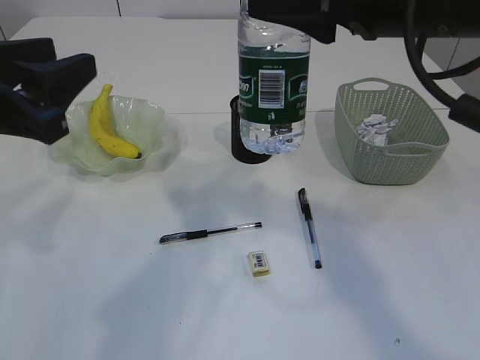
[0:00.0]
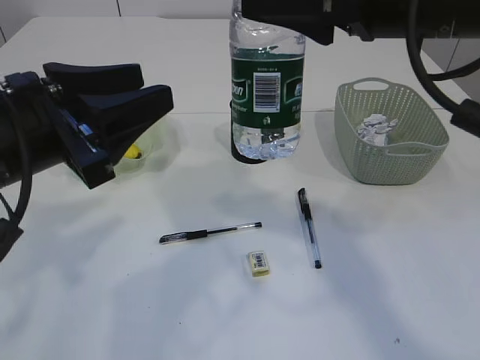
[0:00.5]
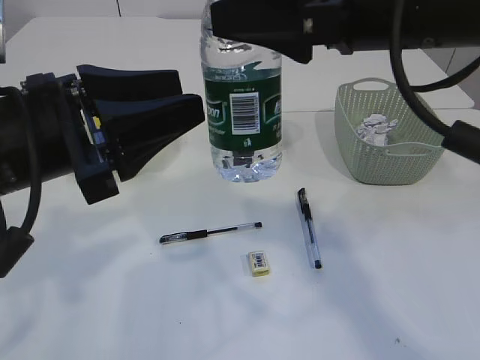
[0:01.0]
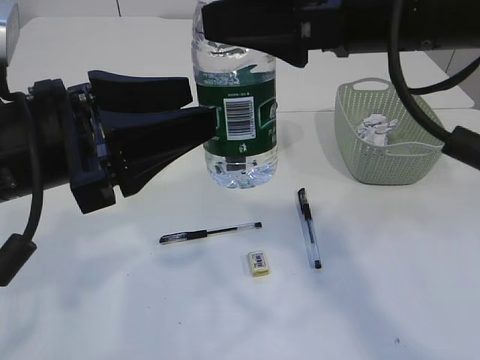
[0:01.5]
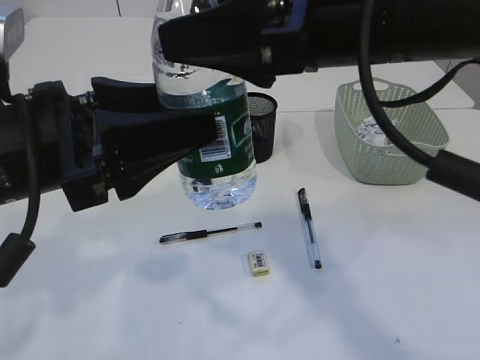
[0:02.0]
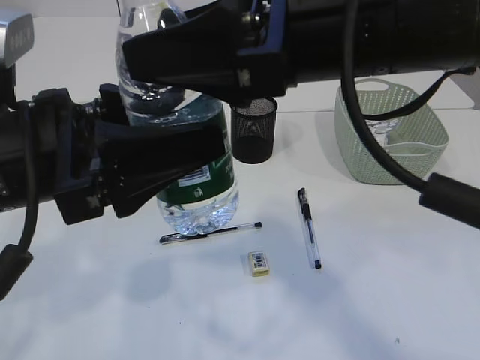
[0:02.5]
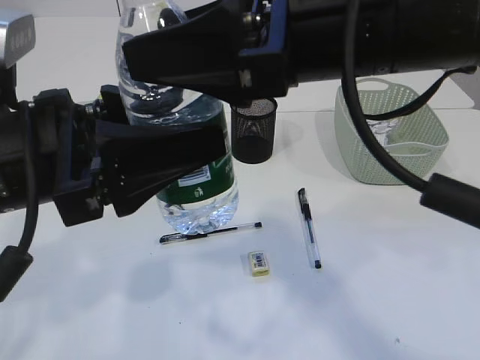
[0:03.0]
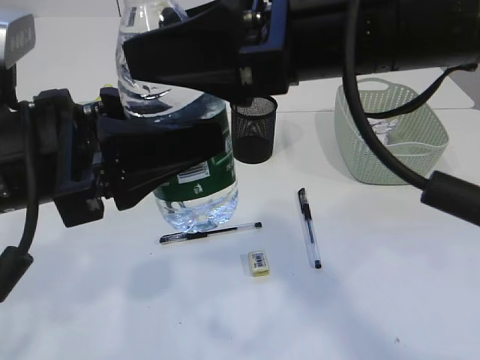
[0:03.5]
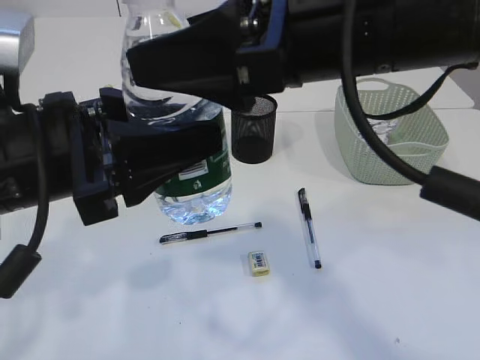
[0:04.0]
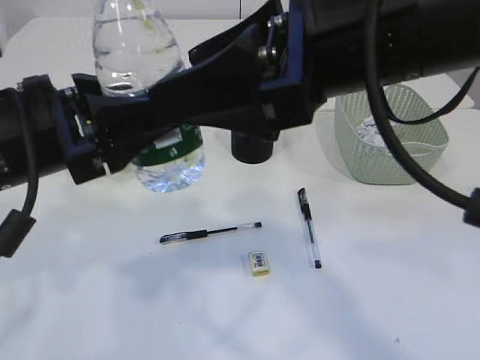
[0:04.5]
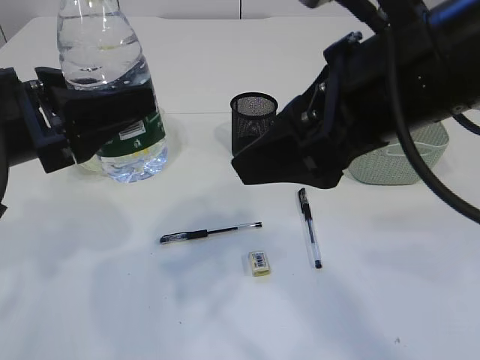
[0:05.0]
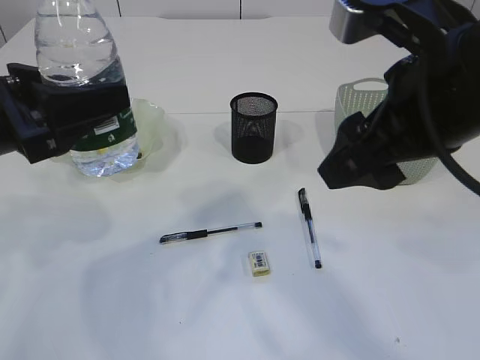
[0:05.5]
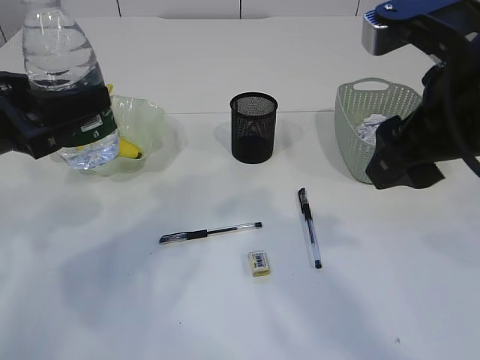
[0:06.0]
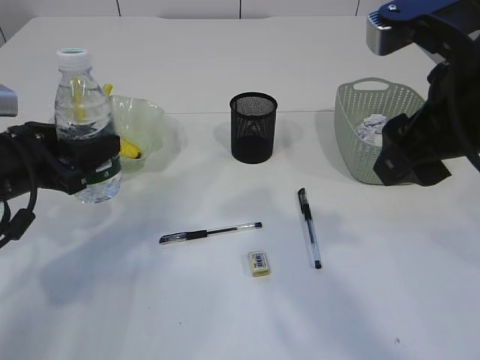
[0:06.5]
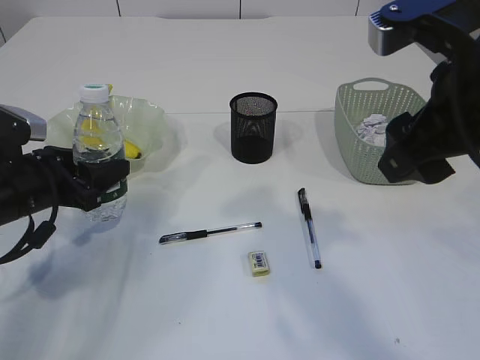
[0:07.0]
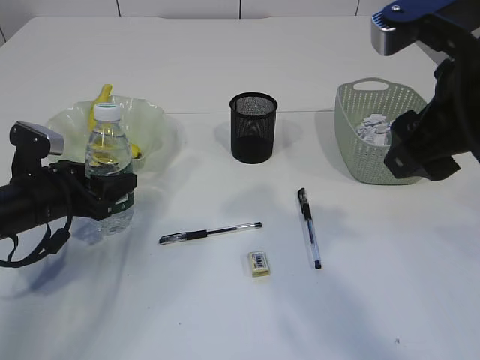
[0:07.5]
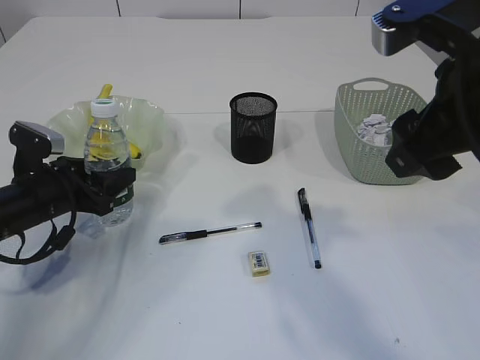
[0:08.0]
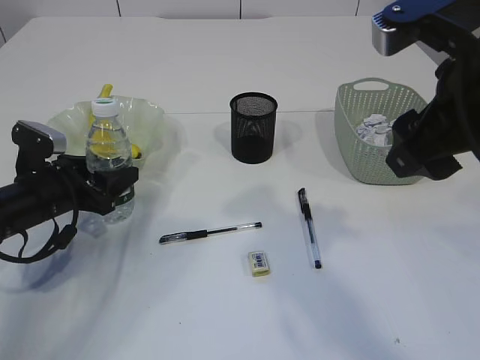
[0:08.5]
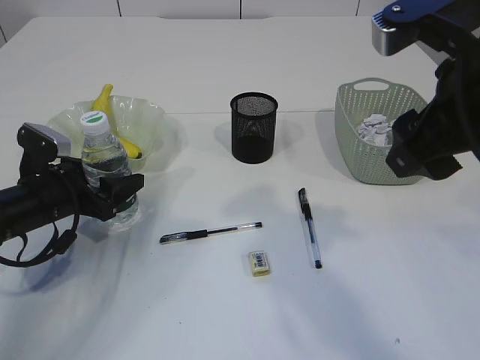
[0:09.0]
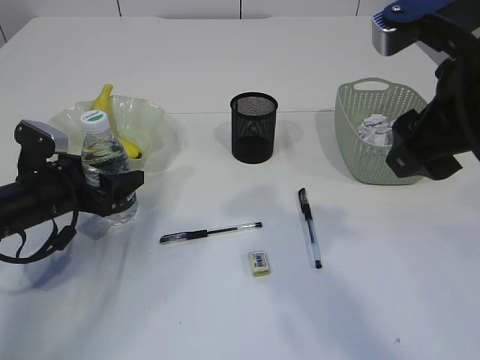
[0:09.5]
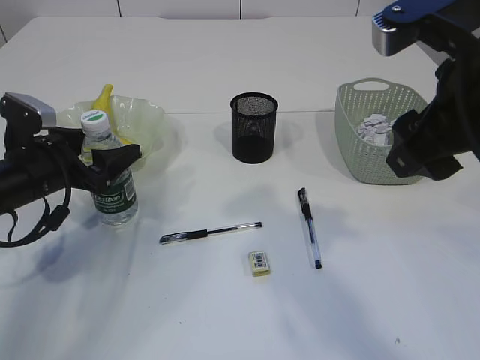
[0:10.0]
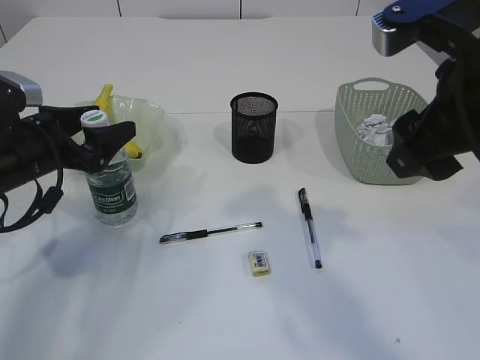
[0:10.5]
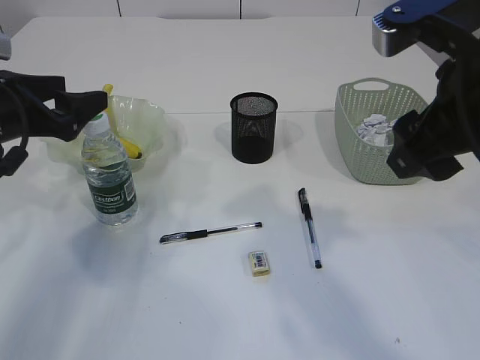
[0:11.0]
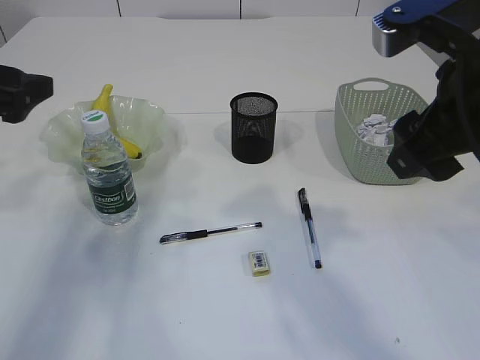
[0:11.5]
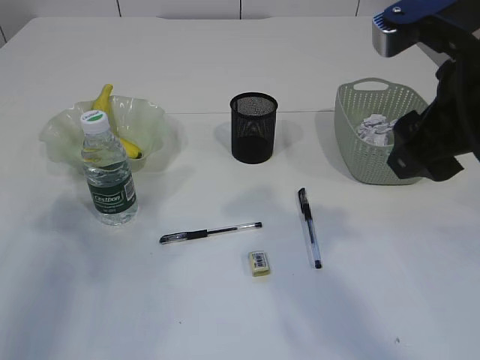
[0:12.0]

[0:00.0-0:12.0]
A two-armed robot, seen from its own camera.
Step, 0:00.0 to 0:04.5: transfer the bottle to the left arm.
Step, 0:05.0 to 0:11.0: Place the bottle.
0:00.0 to 0:02.0: The left gripper is displaced to the right by approximately 5 cm. Meanwhile the right gripper is displaced to the left by approximately 5 cm.
0:04.0 to 0:06.0: The left gripper shifts roughly 10 cm to the left and forward. The right gripper heads to the right, covering approximately 10 cm.
0:06.0 to 0:08.0: The left gripper shifts approximately 15 cm downward and forward.
0:08.0 to 0:10.0: The grippers move only a little.
0:10.0 to 0:12.0: The left gripper heads upward, backward and to the left, covering some 20 cm.

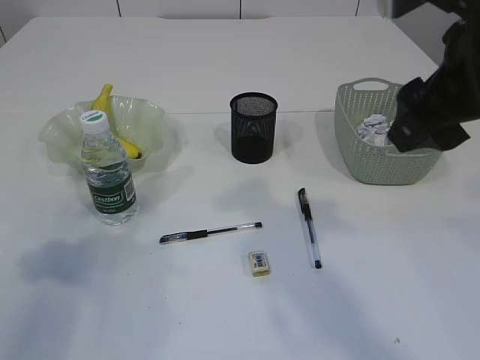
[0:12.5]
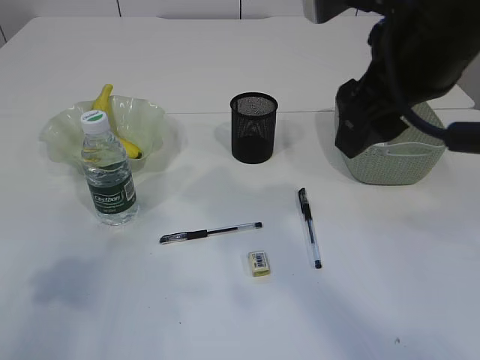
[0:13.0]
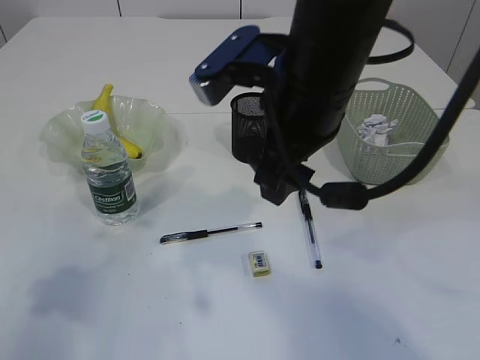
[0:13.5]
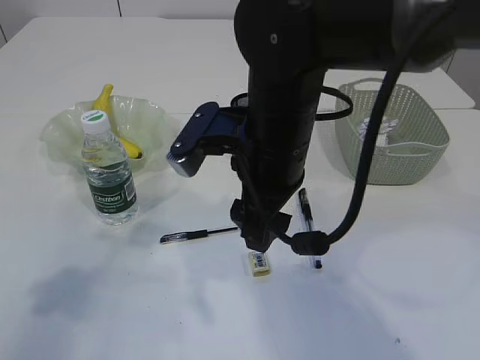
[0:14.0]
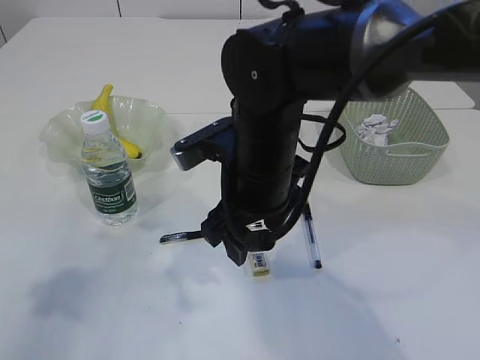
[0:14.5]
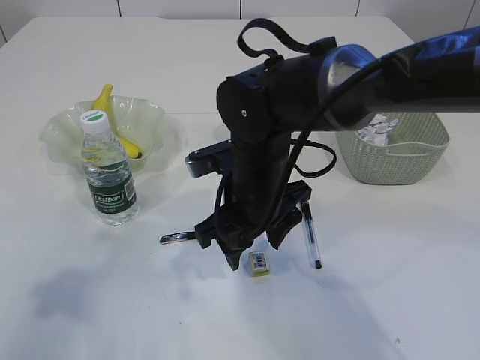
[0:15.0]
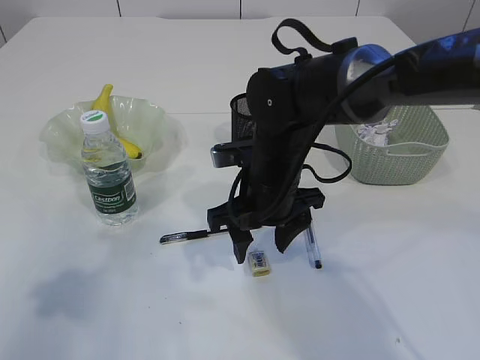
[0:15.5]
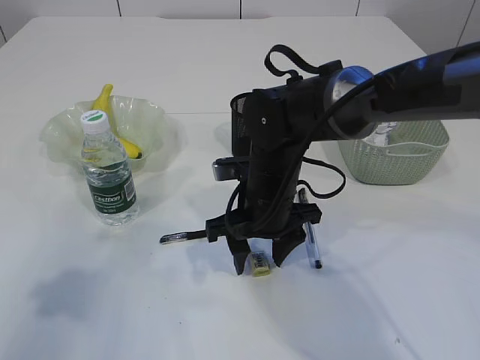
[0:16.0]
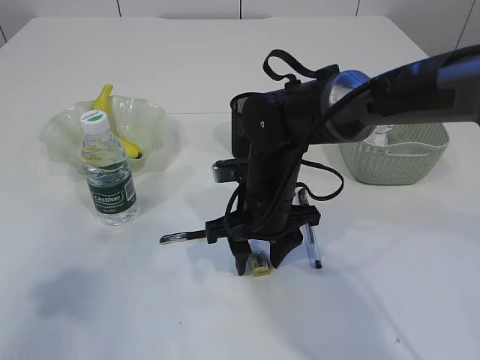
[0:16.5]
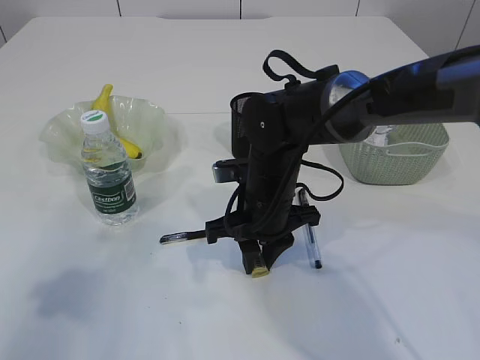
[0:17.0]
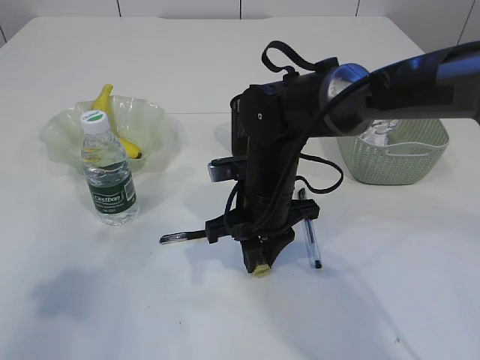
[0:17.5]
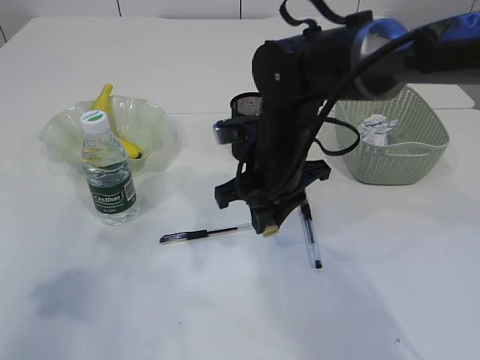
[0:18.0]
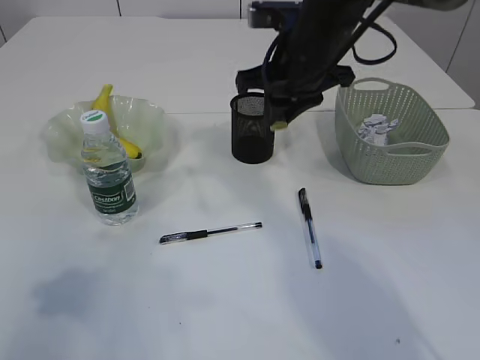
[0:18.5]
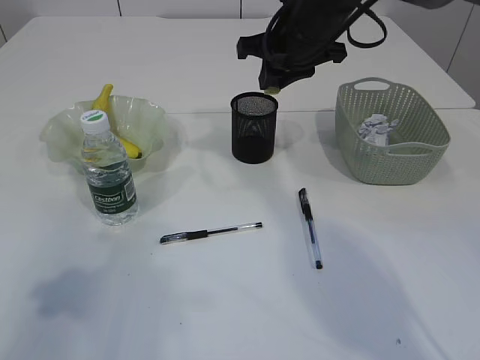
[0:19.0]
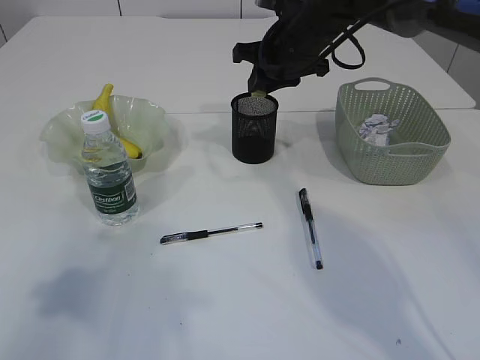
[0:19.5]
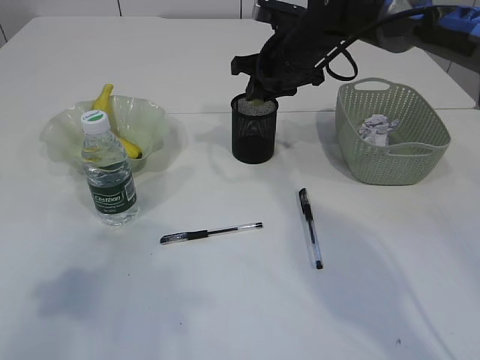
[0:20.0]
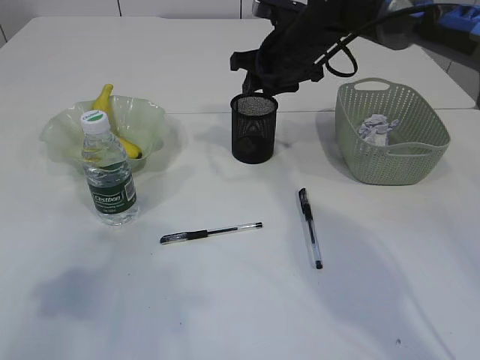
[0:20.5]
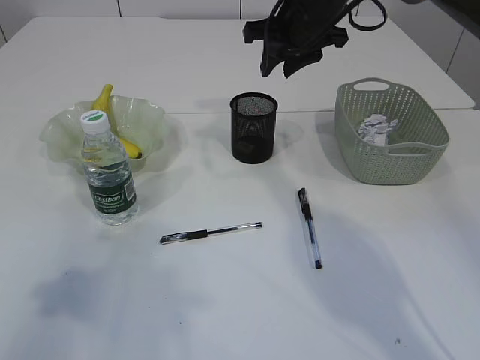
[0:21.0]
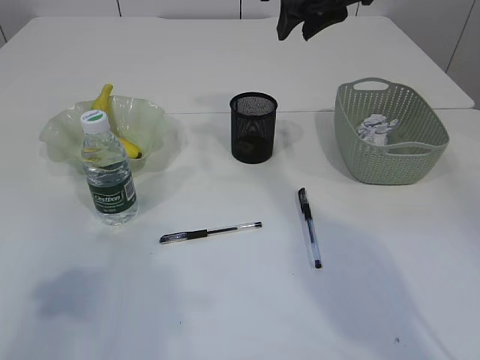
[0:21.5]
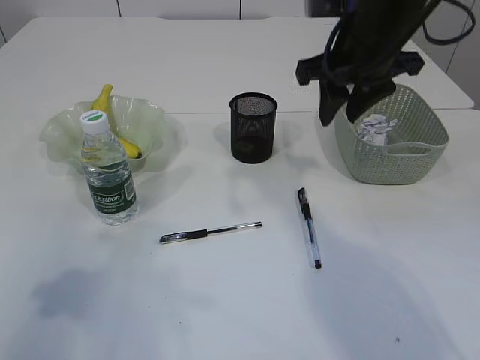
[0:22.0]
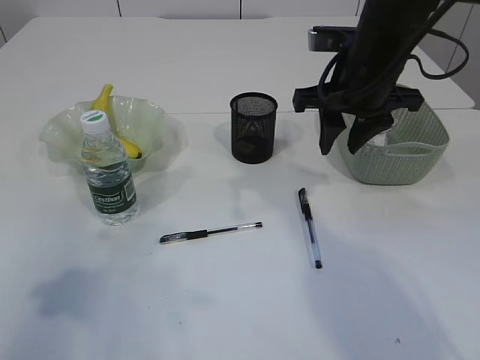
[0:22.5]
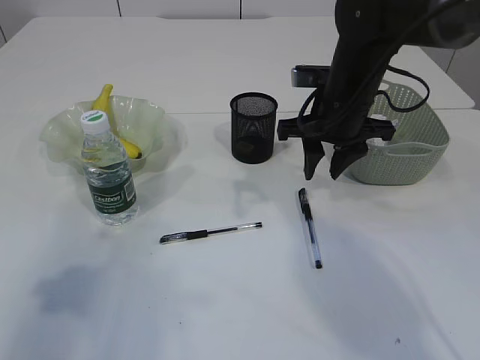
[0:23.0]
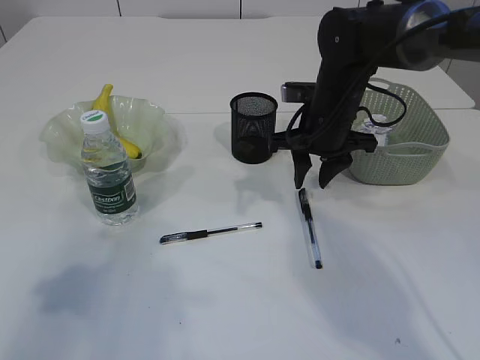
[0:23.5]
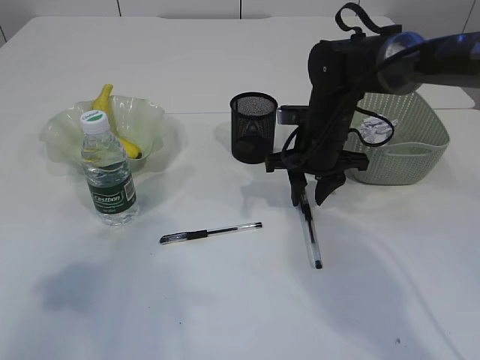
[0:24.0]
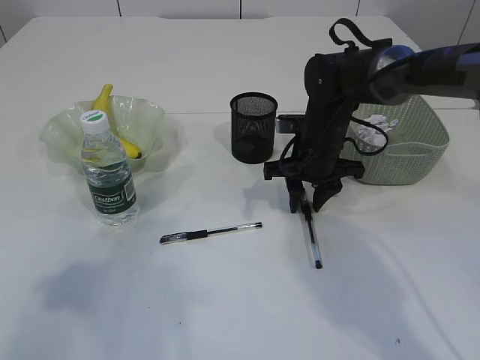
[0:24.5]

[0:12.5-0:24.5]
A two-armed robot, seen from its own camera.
Step, 0:12.5 to 0:17.5: Pick up the eraser.
Step, 0:18.0 to 0:21.0: Place the eraser into the pen holder.
0:12.5 to 0:14.5: The left gripper moves approximately 5 cm; the right gripper shifts approximately 20 cm to the left, downward and forward.
0:14.5 to 0:16.5: The right gripper moves downward, some 10 cm.
0:16.5 to 0:18.5: The right gripper moves upward and forward, about 15 cm, and closes.
0:18.5 to 0:20.5: The right gripper is displaced forward by some 10 cm.
0:20.5 to 0:22.5: The right gripper shifts some 10 cm backward.
0:22.5 to 0:24.5: The right gripper travels downward by about 15 cm.

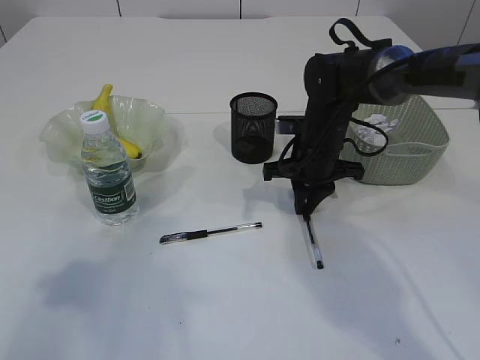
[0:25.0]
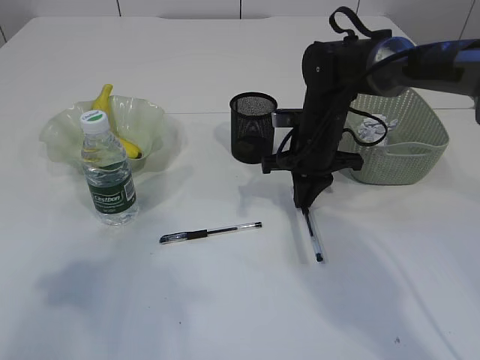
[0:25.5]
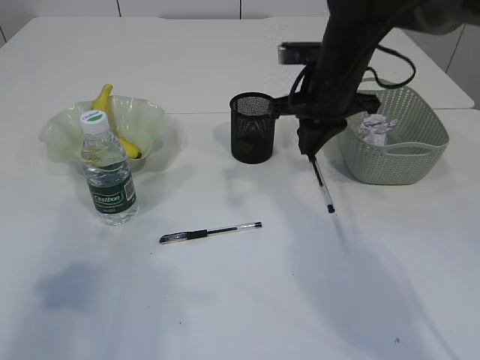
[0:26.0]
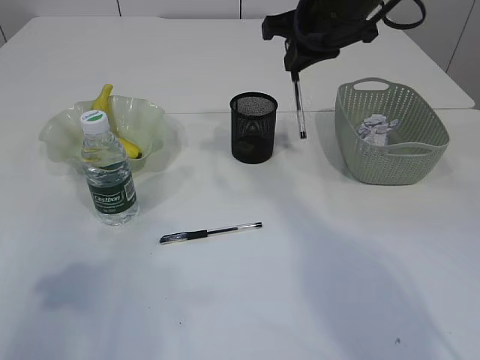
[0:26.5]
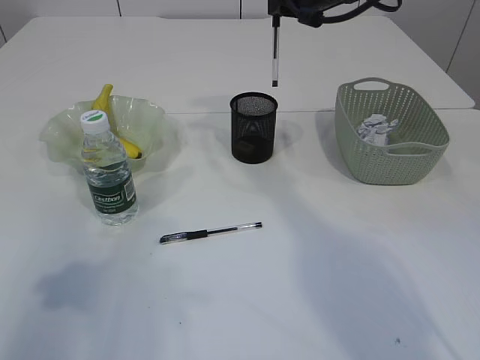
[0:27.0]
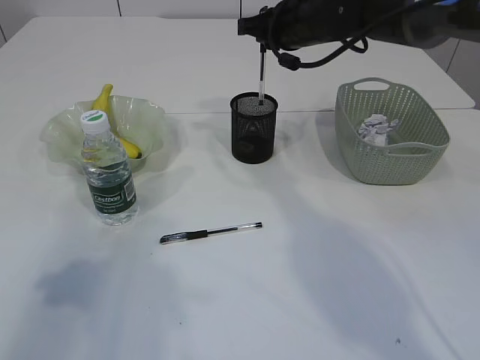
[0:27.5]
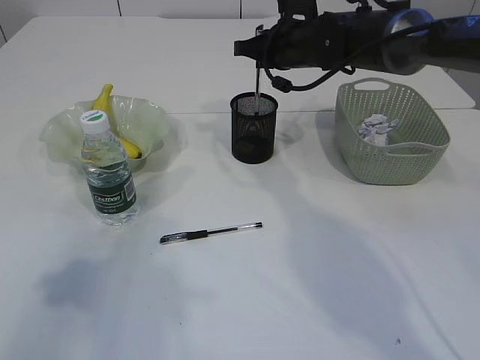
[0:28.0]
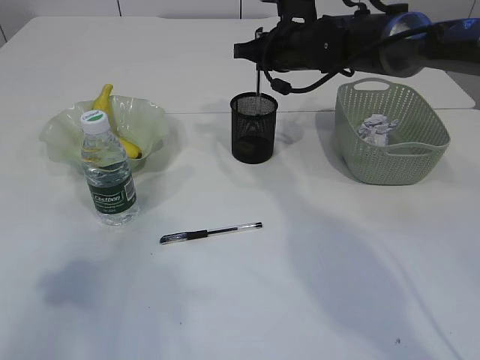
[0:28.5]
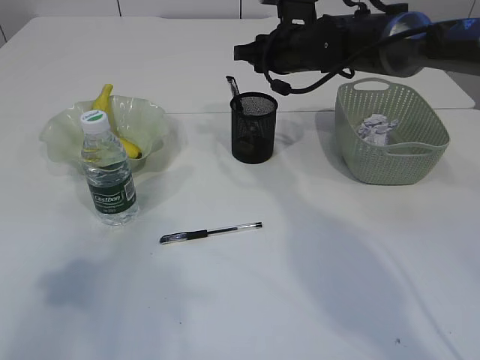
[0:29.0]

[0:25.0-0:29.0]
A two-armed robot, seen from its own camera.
Step, 0:26.0 to 0:28.5: Place the pen into the pen holder.
0:25.0 to 0:27.0: The right gripper heads upward, covering about 20 cm.
0:27.0 to 0:29.0: The right gripper travels downward by some 10 cm.
